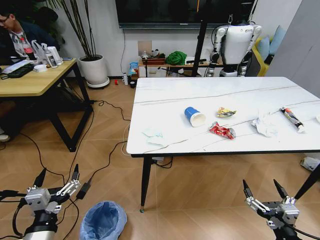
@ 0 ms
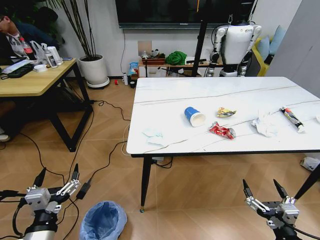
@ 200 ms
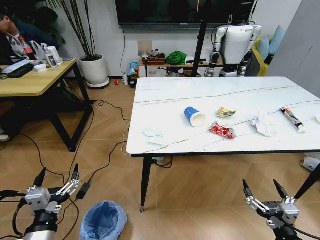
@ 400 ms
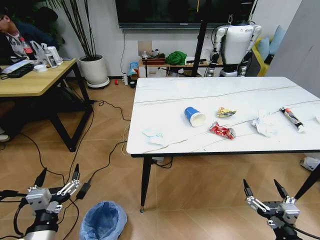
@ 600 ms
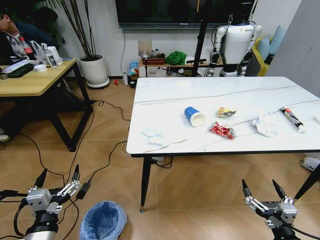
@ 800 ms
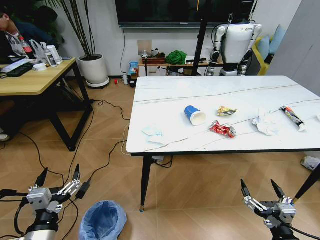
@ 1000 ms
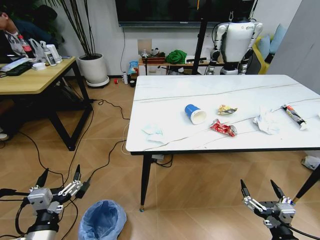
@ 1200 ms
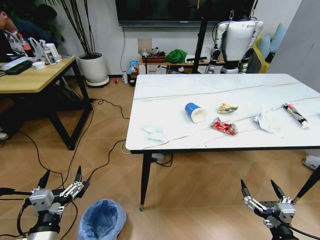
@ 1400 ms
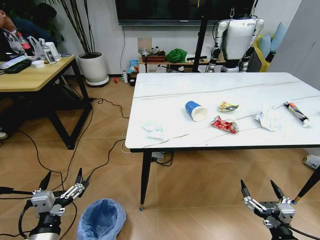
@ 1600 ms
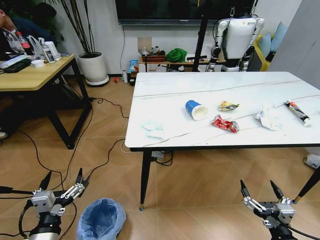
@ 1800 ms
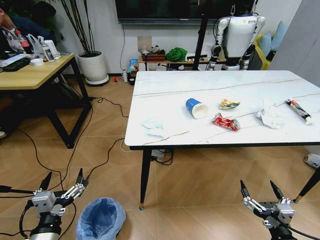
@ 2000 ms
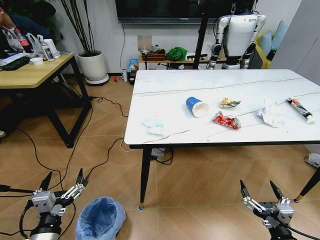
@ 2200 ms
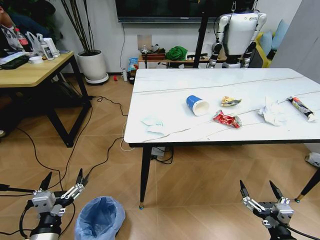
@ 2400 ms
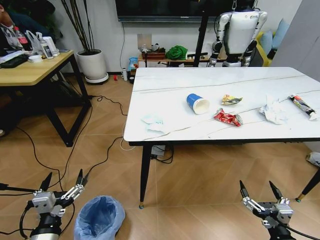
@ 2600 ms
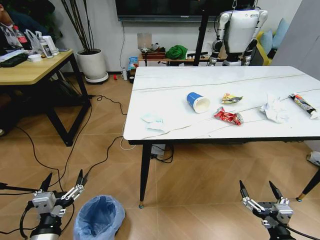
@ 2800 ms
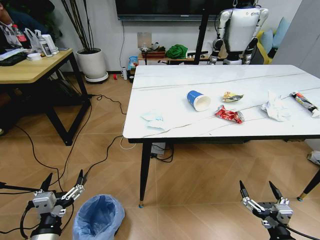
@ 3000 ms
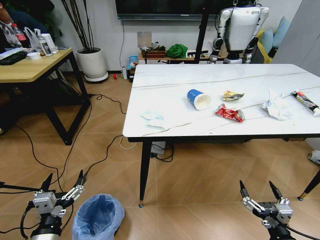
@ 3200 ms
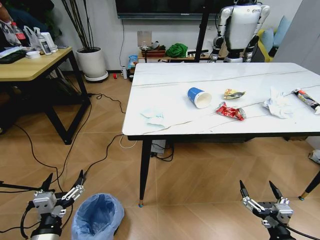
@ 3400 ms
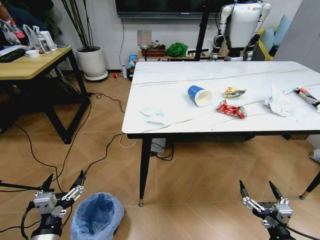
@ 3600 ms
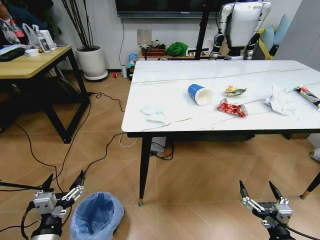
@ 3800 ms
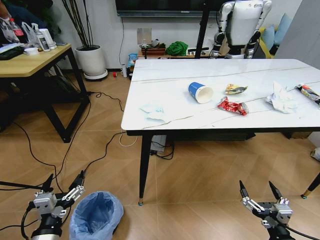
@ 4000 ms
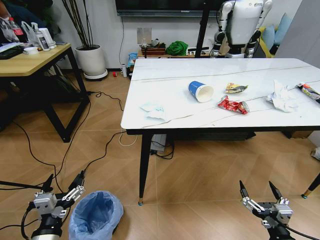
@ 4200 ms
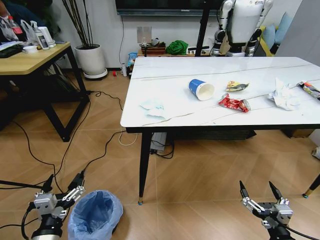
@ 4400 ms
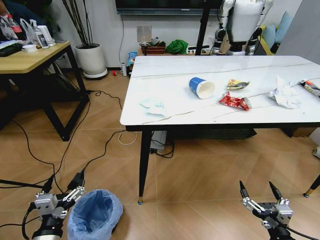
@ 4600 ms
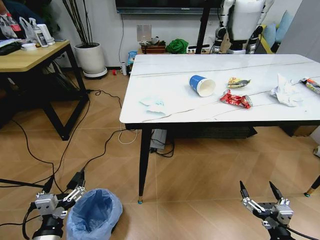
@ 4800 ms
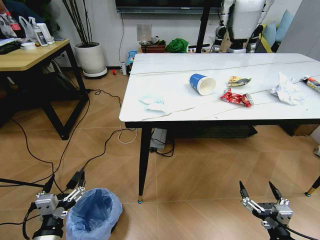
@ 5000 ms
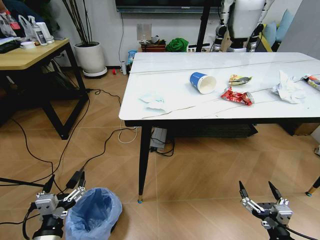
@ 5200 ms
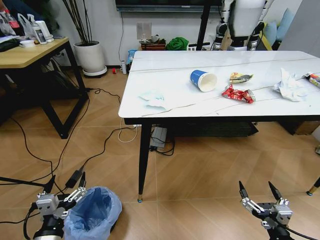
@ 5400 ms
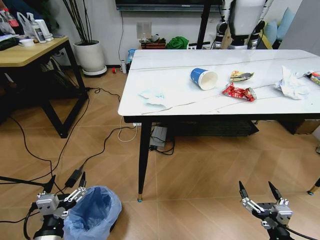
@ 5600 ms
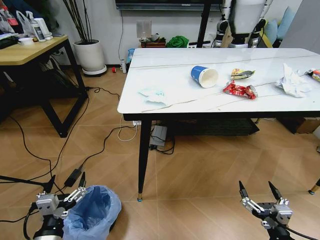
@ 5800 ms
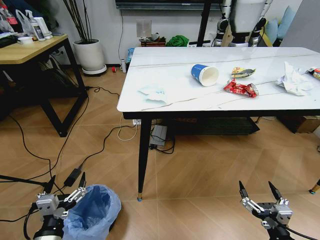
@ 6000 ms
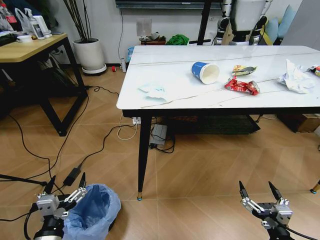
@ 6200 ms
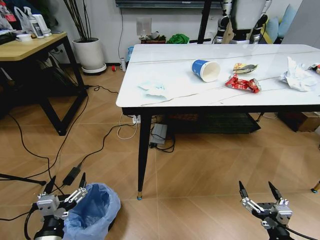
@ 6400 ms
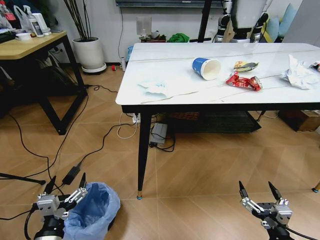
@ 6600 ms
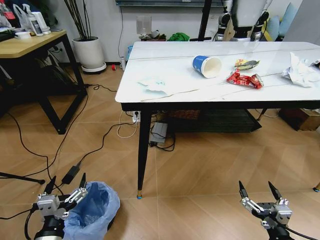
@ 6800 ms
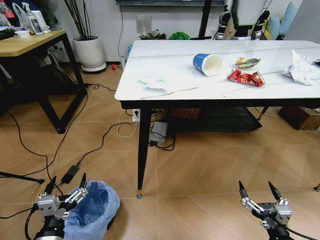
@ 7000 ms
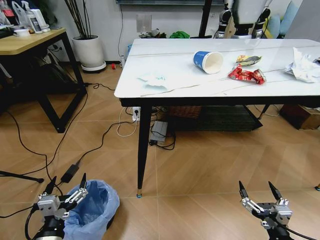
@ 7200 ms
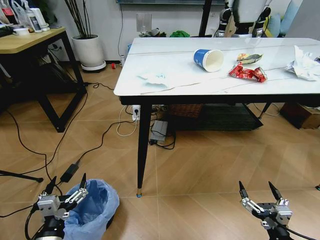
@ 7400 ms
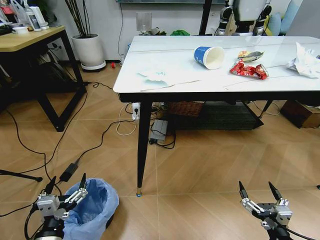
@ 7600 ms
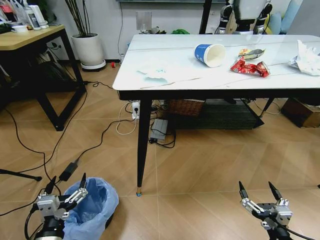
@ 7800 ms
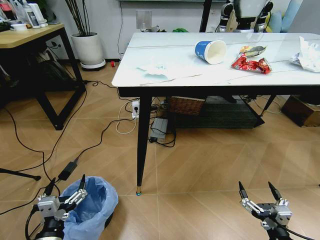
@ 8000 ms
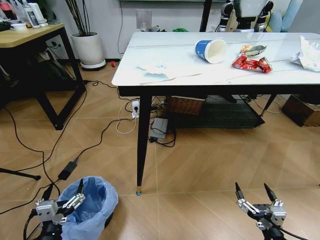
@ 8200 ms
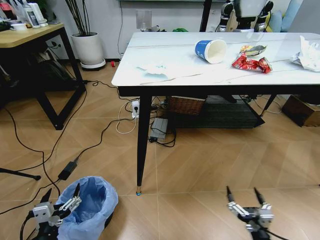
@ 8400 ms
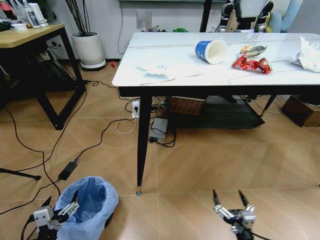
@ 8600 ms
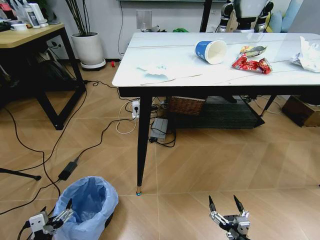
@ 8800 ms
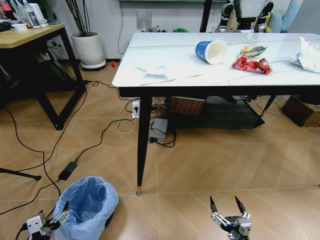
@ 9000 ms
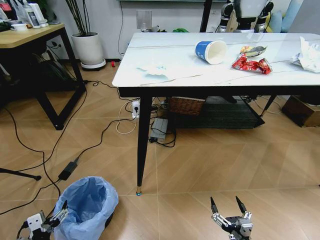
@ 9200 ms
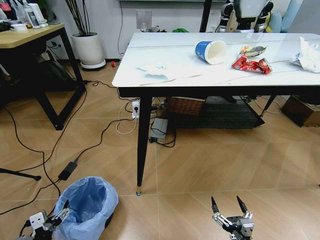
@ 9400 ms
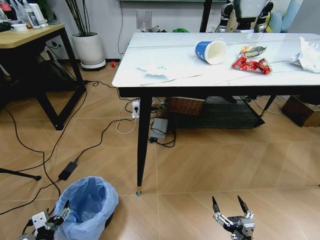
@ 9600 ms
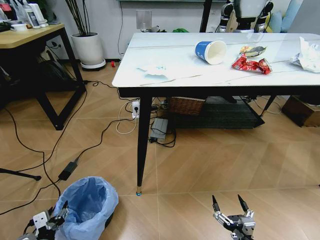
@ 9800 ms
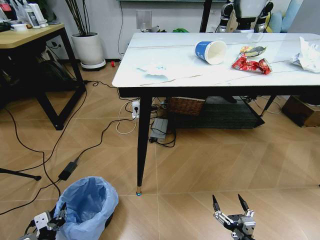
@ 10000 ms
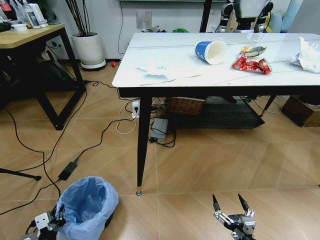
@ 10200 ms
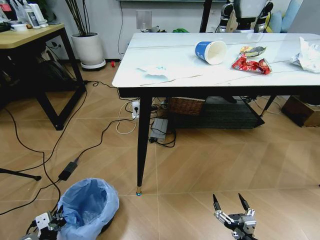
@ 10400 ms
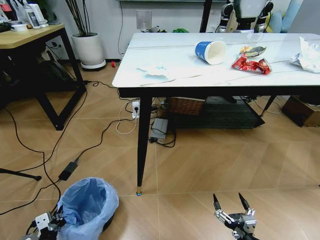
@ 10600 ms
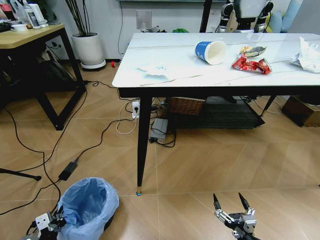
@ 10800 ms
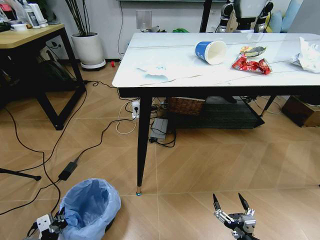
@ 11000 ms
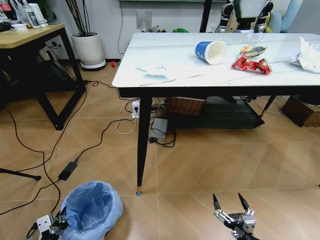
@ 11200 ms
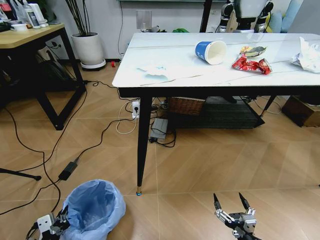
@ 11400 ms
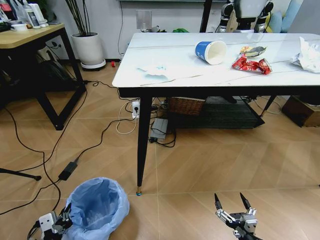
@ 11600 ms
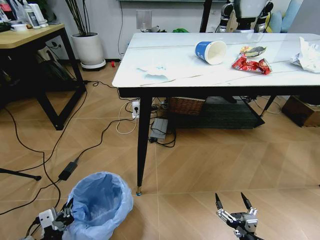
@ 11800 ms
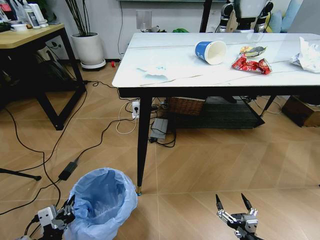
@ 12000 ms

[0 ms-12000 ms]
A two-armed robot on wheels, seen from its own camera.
Task of the whole recording: Pick up the trash bin and place the trash from the table into it.
7600 ms to 9000 ms: The right gripper travels downward and to the left by about 10 cm. Meanwhile the left gripper is displaced to the left and downward by approximately 10 cm.
9000 ms to 10400 ms: The left gripper closes its fingers.
10400 ms to 12000 ms: The left gripper shifts about 10 cm upward and to the right.

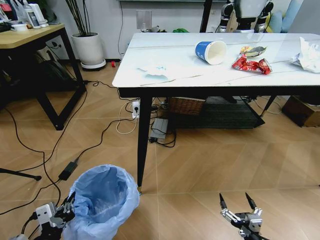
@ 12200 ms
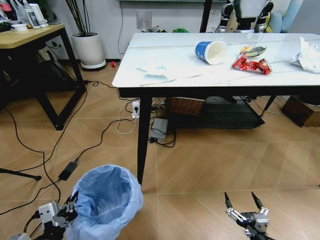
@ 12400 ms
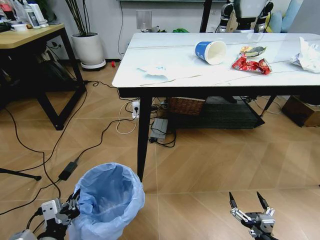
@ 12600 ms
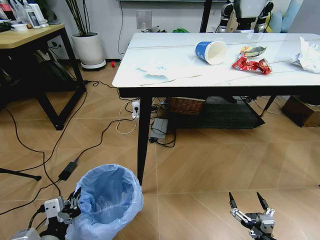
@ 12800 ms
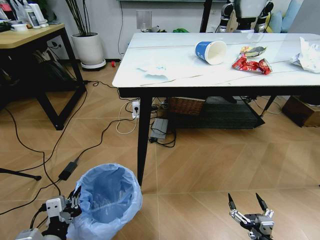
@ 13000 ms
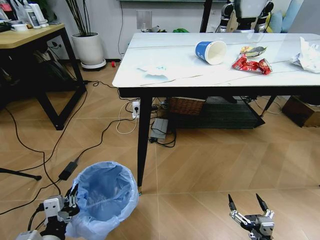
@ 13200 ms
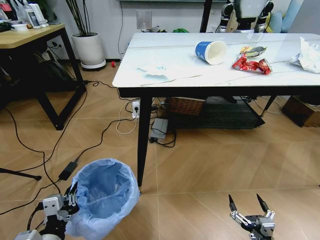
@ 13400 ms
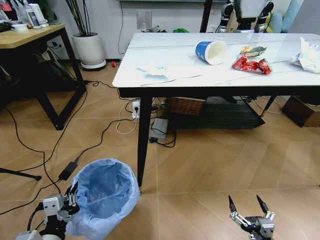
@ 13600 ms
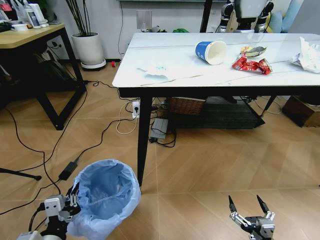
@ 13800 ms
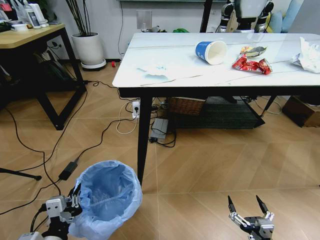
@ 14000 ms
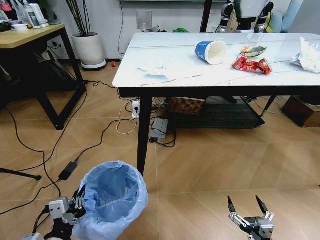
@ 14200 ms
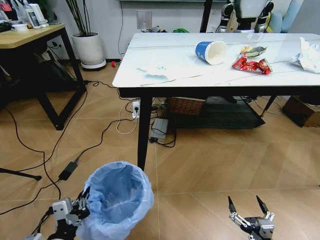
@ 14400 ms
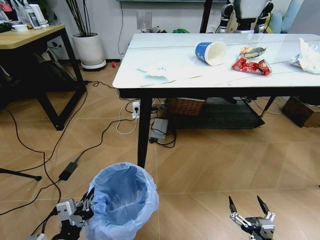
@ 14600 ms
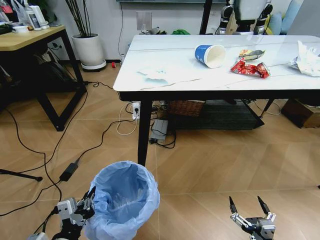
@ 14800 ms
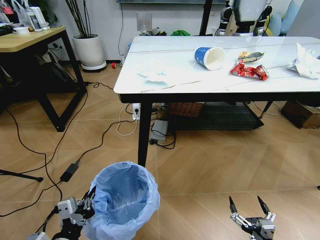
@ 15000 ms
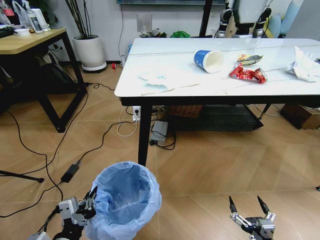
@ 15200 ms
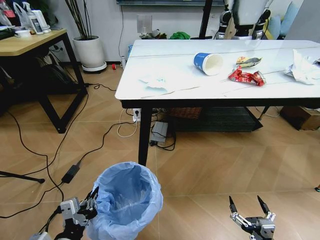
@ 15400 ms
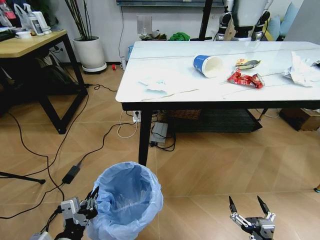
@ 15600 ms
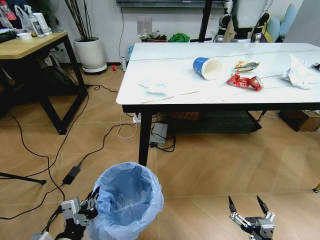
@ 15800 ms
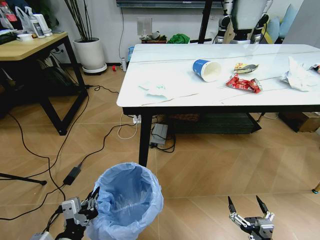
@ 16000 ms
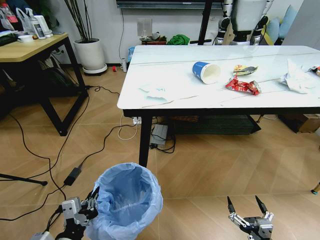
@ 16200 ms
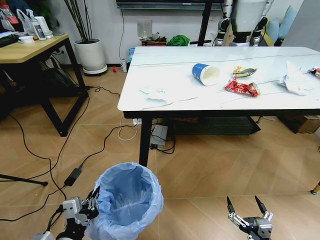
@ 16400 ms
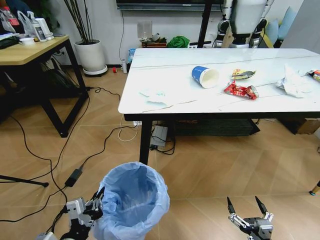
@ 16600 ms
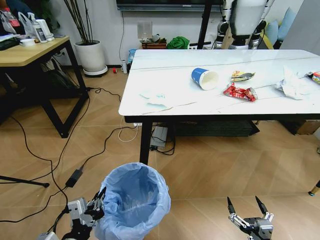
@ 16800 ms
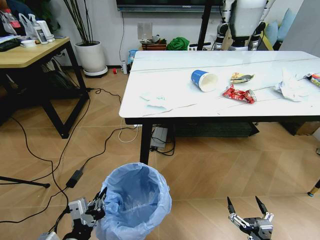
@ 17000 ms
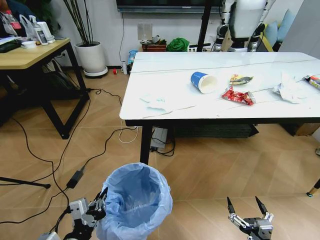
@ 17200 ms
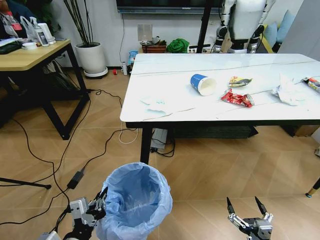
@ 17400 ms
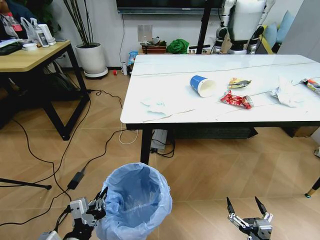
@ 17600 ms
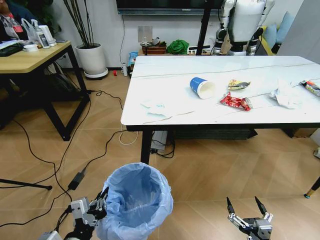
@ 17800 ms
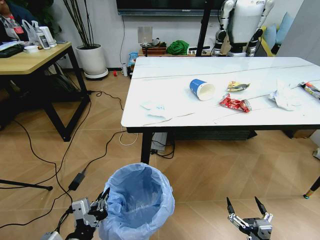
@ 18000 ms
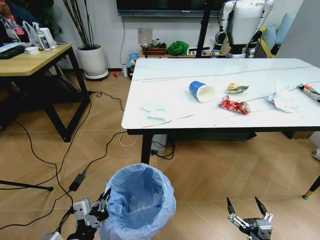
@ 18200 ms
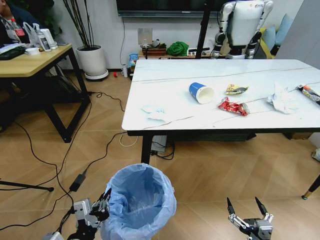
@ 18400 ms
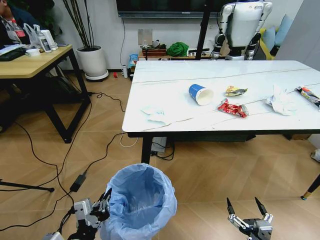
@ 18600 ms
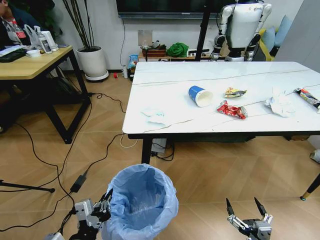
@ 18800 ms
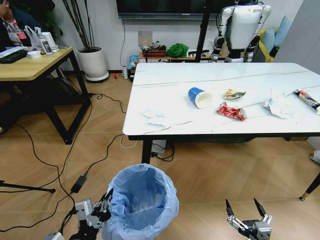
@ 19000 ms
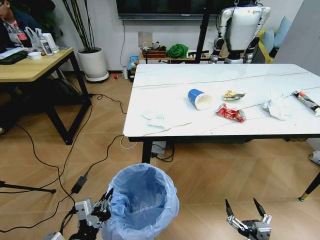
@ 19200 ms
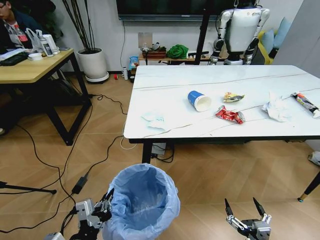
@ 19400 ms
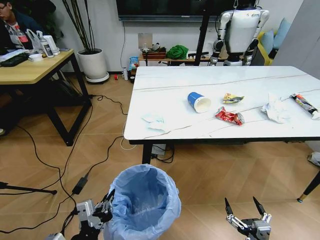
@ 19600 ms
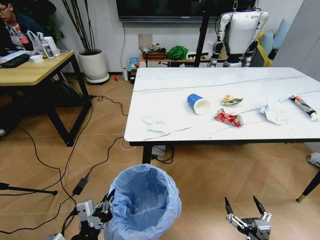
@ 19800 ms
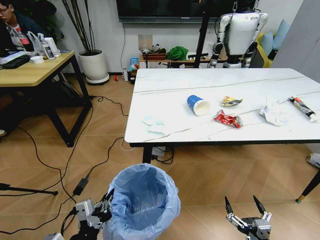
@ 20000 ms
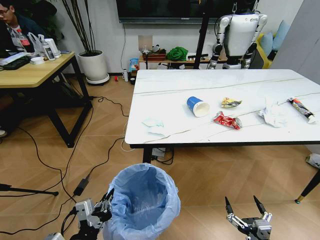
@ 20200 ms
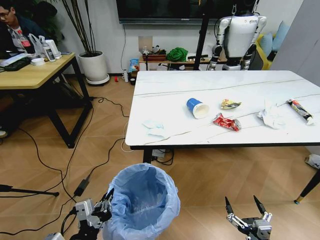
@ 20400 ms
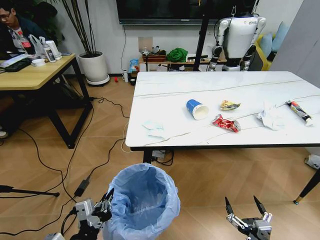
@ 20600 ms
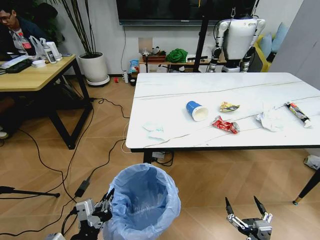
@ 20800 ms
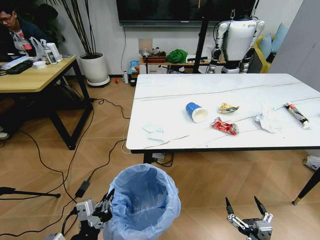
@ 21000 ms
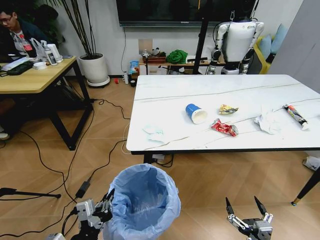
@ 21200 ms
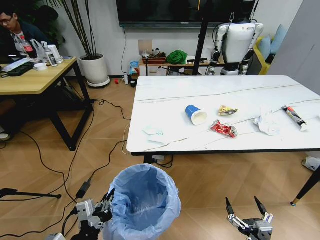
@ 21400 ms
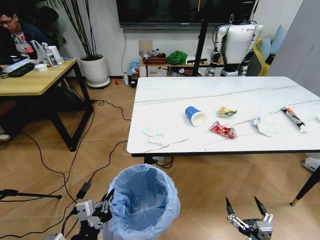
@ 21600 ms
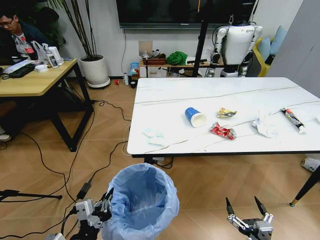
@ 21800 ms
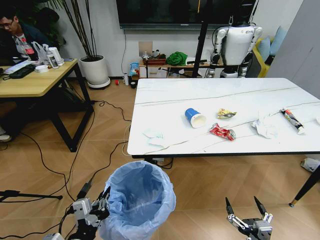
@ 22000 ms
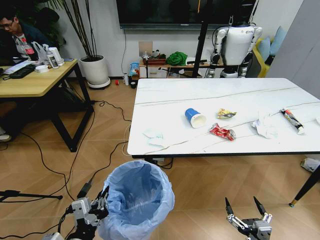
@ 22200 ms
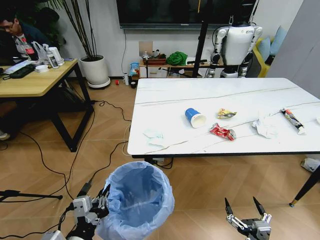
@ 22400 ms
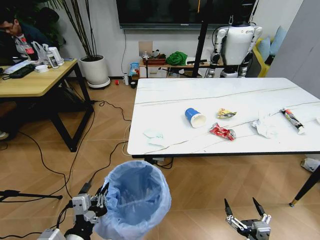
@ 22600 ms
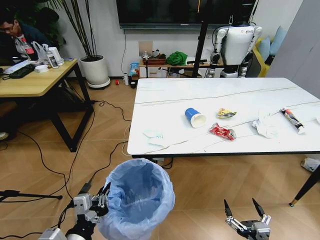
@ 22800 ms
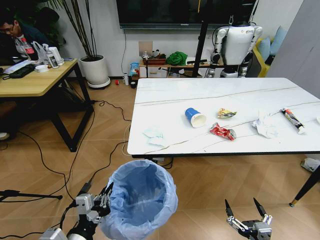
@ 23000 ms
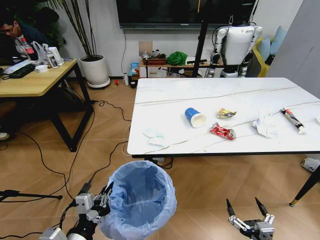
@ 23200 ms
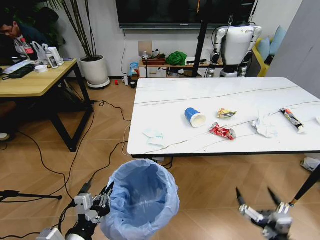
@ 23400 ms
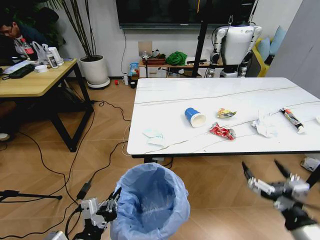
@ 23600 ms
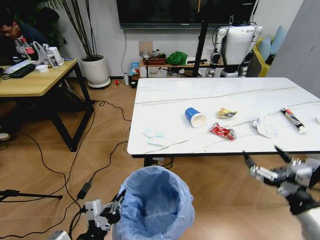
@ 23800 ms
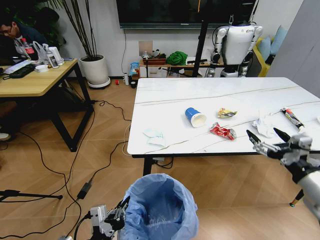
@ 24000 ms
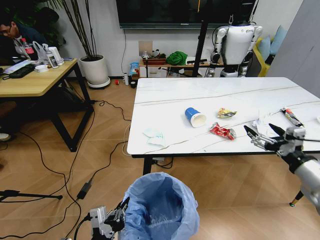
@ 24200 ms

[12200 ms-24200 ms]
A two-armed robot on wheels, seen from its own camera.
Task of the whole recording: Pick up the trash bin and place the trash from the table into it.
12200 ms to 13800 ms: The grippers stay close to where they were, moving slightly.
22600 ms to 24200 ms: The right gripper goes about 30 cm upward, forward and to the right.
